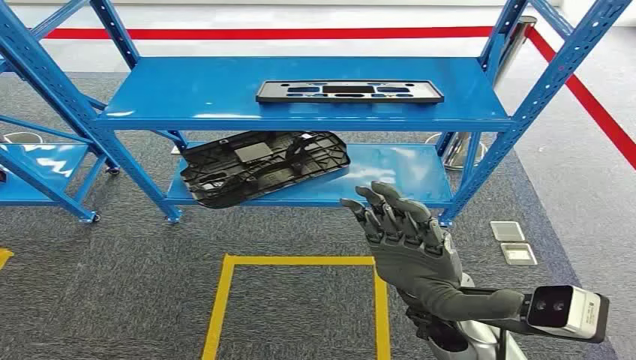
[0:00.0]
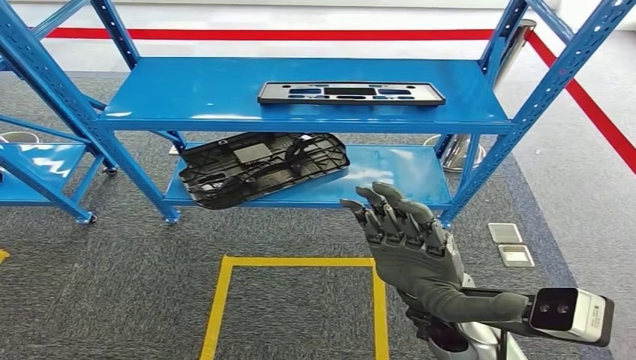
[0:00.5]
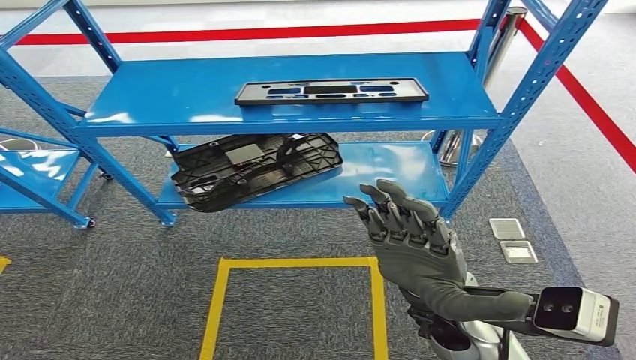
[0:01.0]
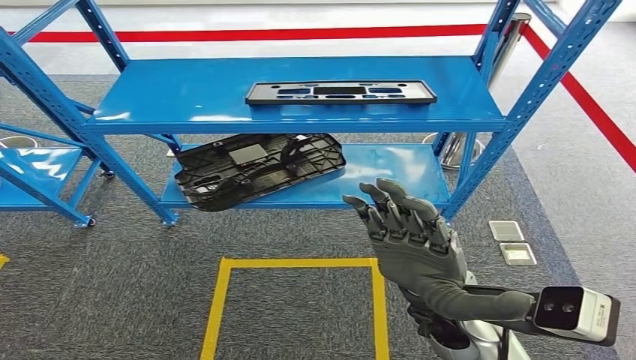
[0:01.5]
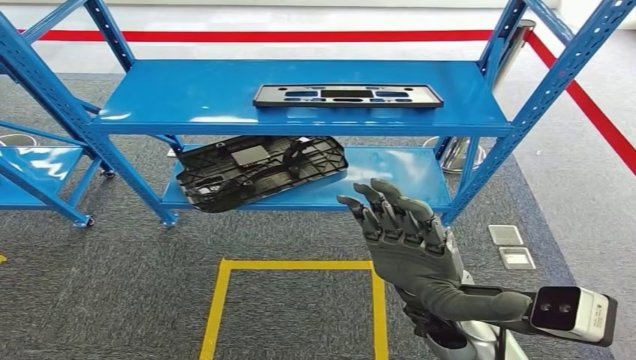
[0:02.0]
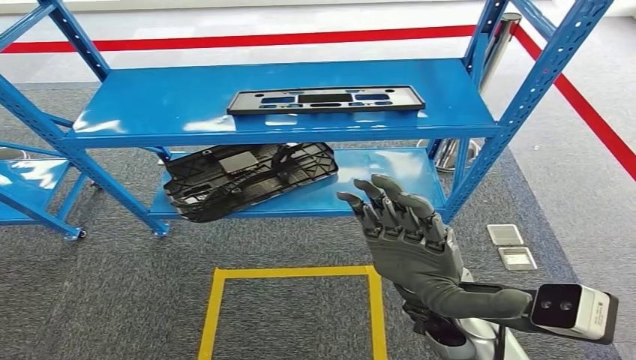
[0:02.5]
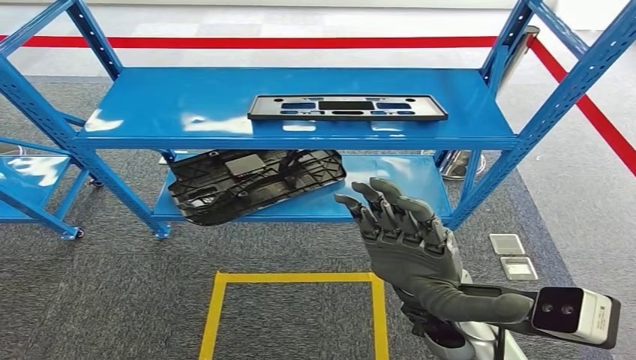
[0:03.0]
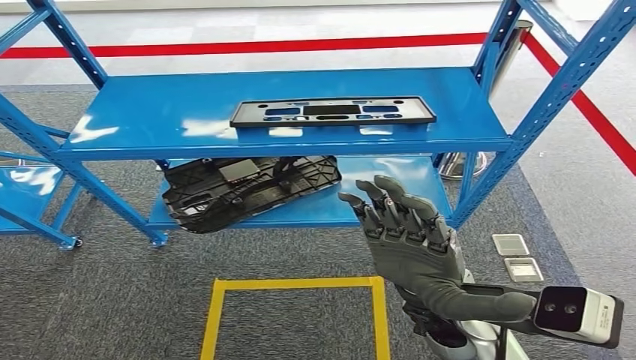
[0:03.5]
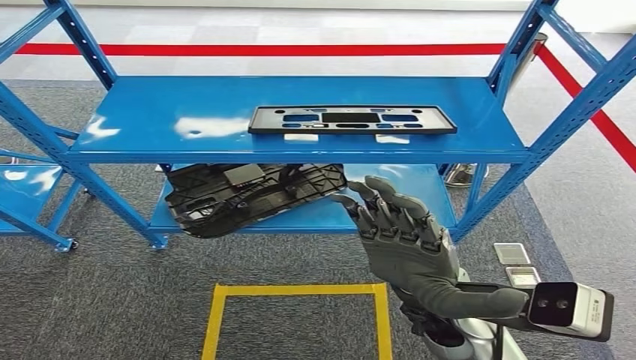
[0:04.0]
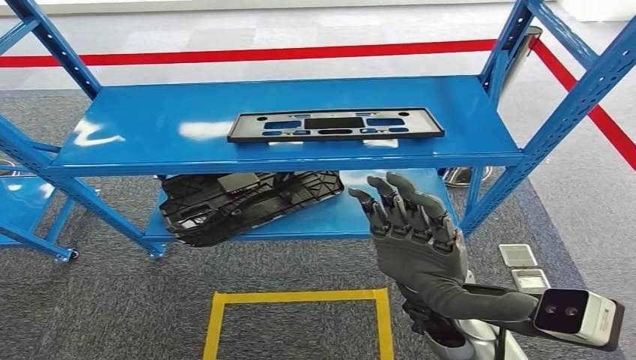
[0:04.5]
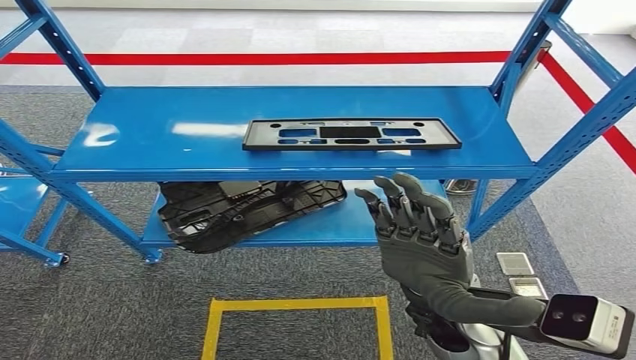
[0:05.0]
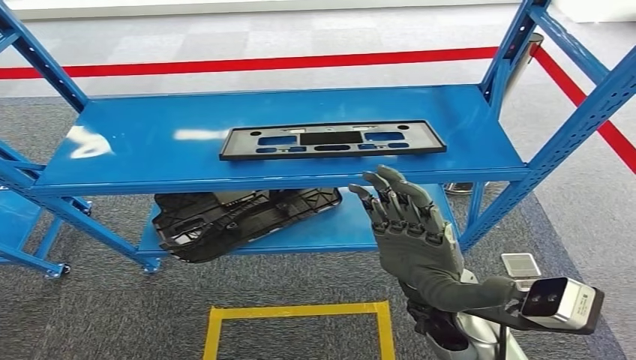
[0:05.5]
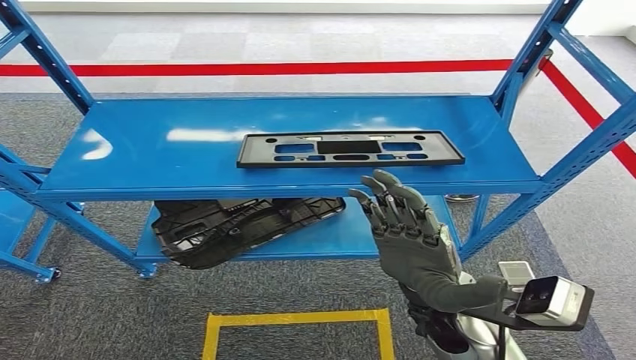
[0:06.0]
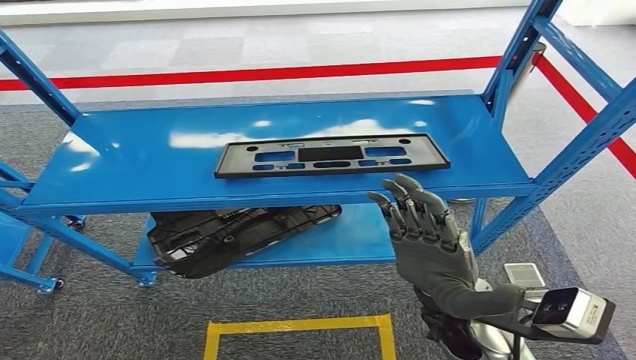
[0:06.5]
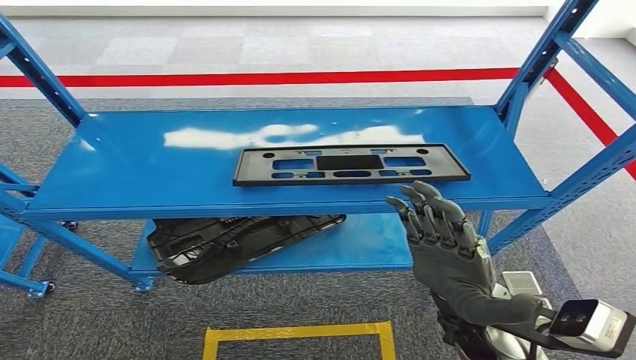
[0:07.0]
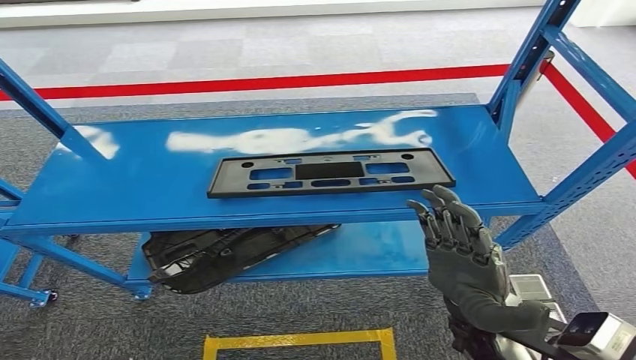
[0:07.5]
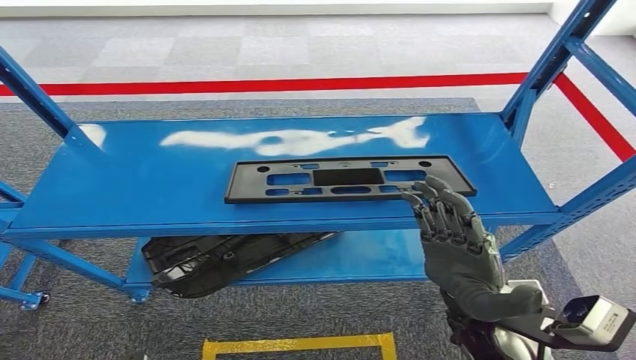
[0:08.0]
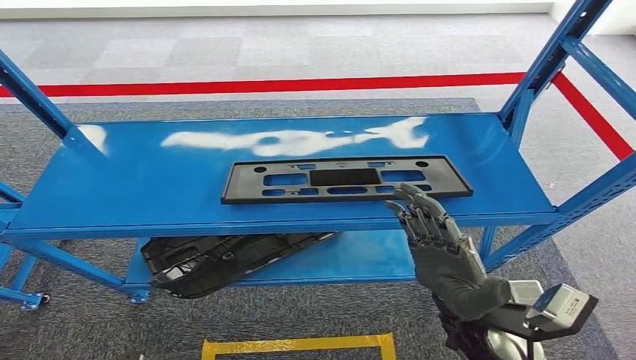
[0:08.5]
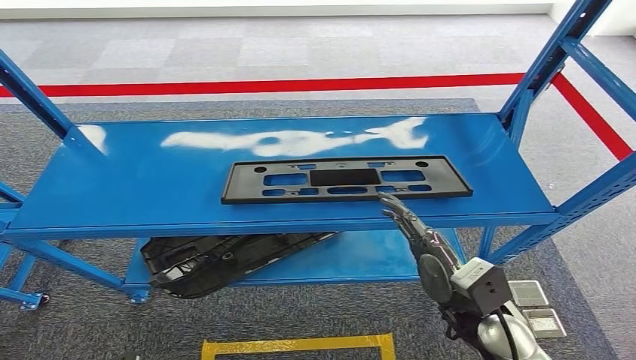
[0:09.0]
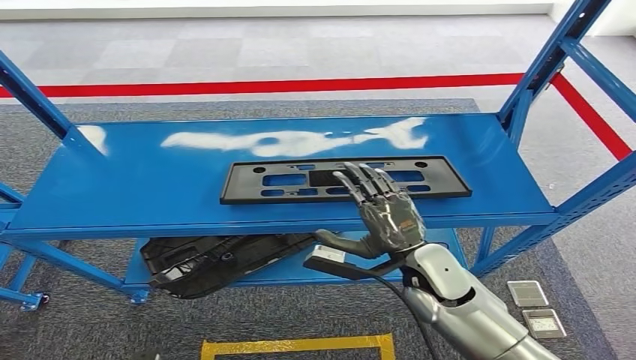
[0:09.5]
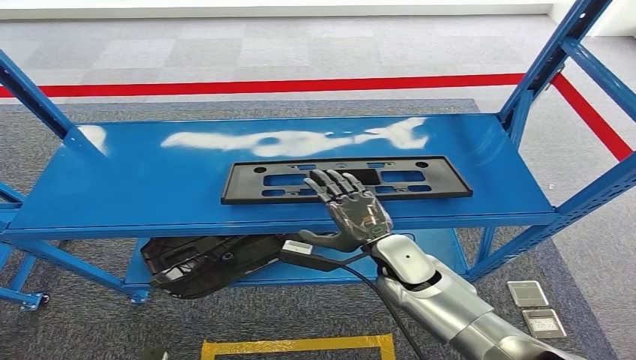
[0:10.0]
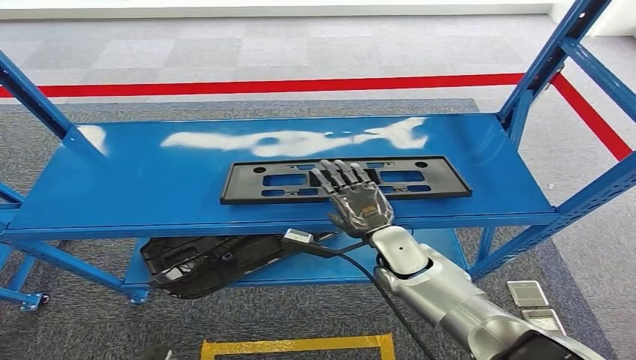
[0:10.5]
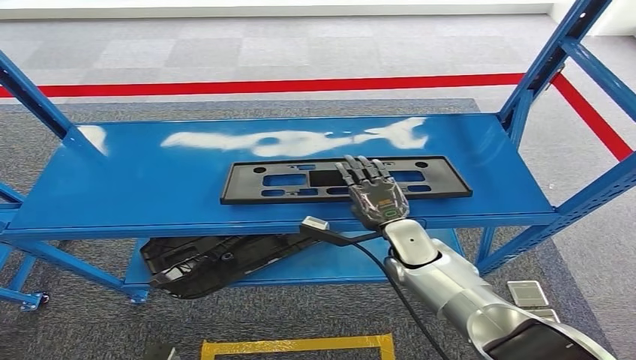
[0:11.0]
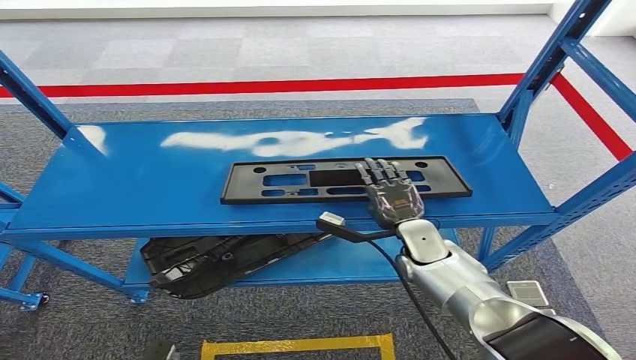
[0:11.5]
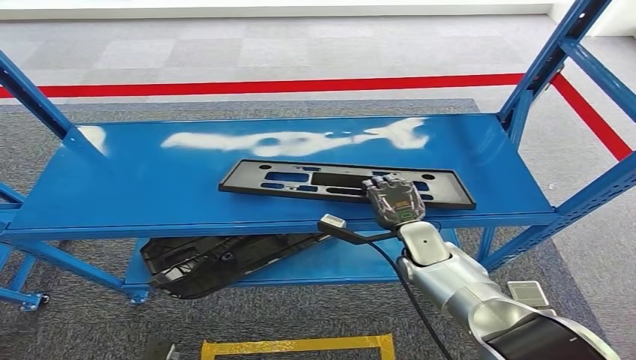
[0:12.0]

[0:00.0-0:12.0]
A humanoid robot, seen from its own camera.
0:08.0 to 0:10.0: The right hand shifts about 15 cm forward, downward and to the left.
0:10.0 to 0:12.0: The right hand goes about 10 cm forward and to the right.

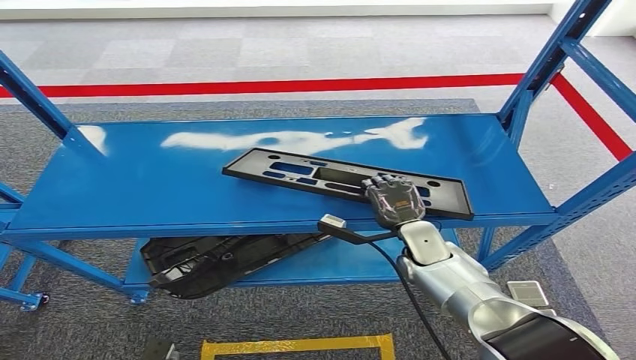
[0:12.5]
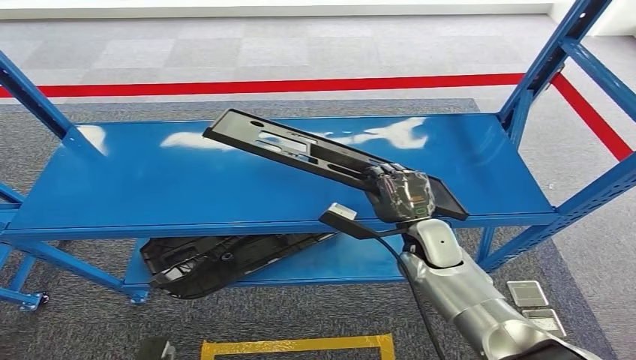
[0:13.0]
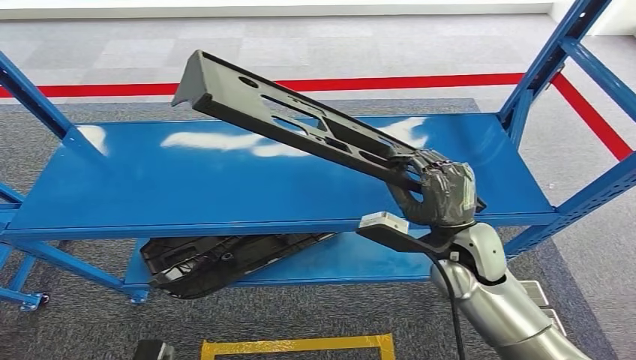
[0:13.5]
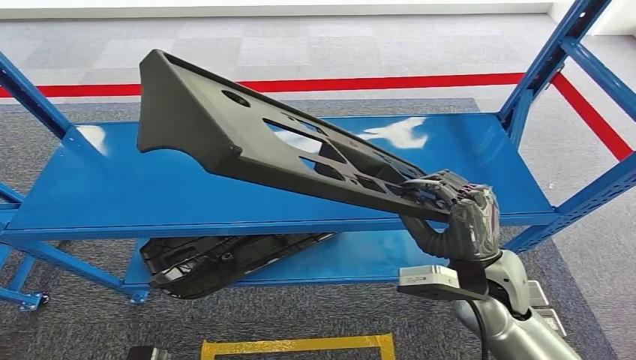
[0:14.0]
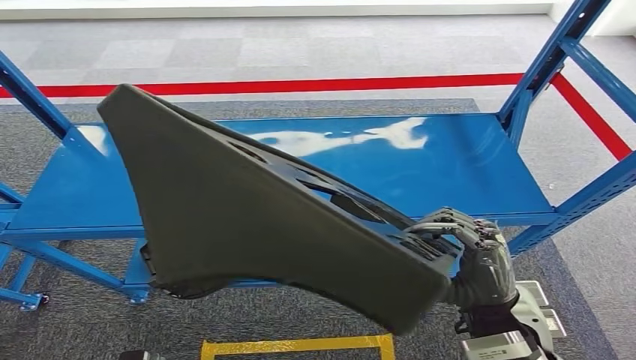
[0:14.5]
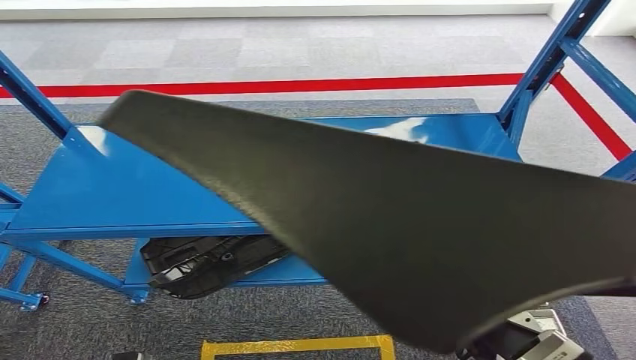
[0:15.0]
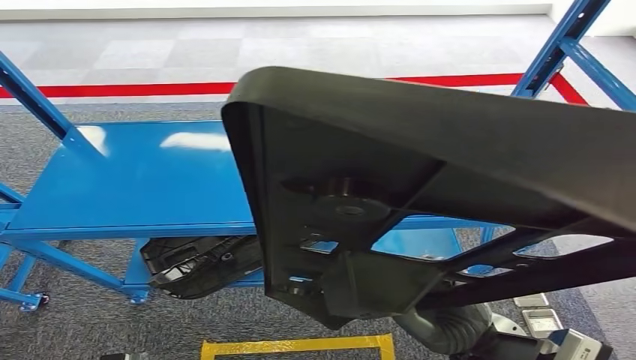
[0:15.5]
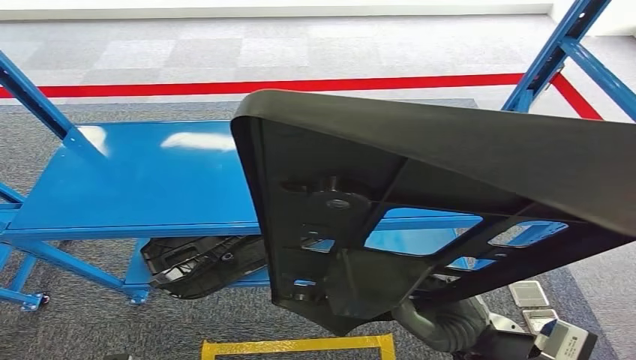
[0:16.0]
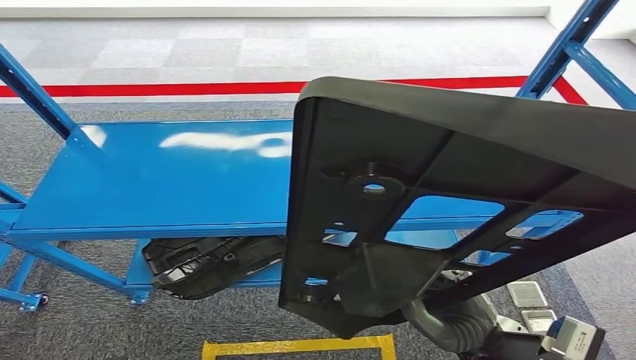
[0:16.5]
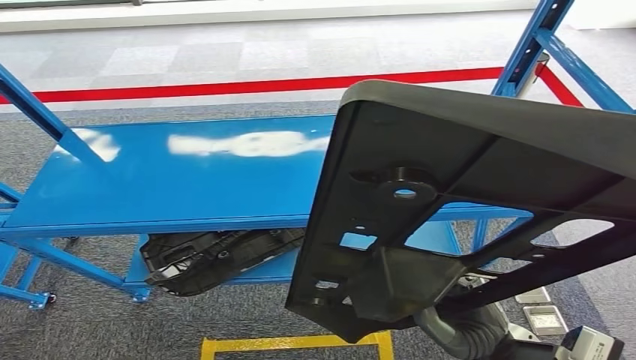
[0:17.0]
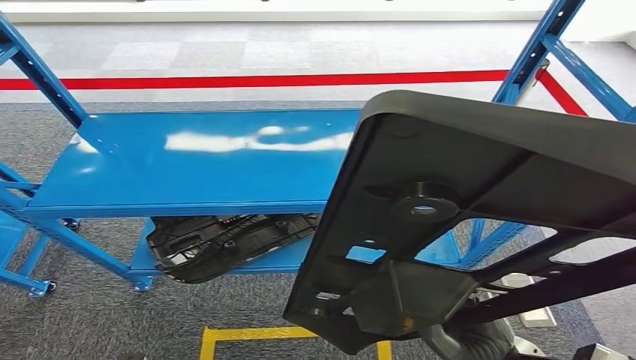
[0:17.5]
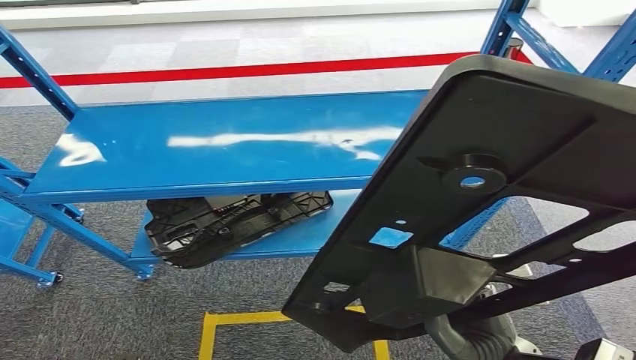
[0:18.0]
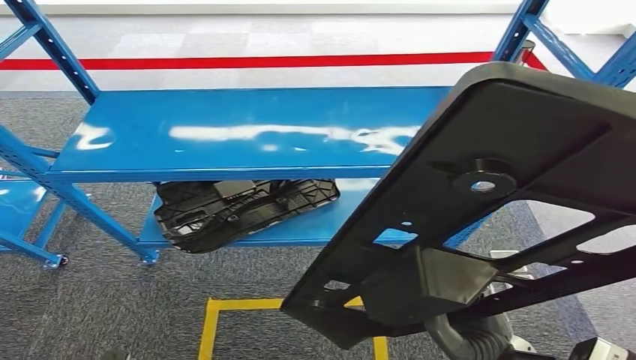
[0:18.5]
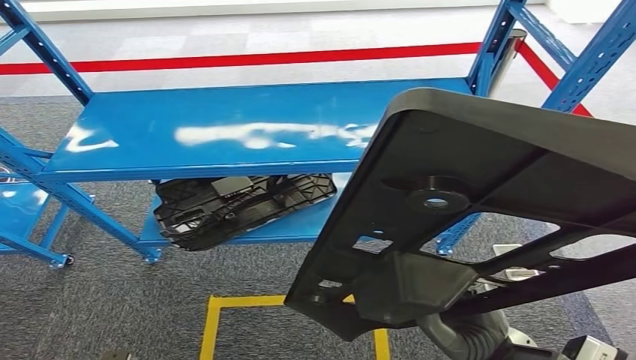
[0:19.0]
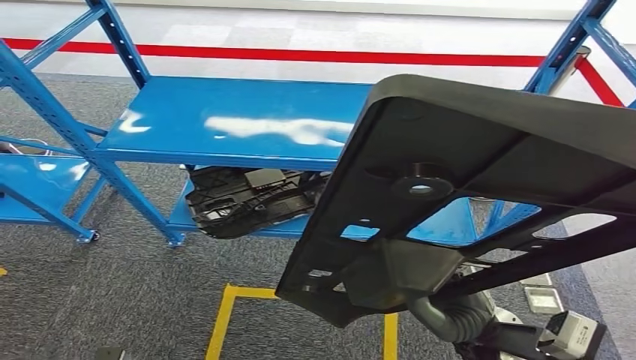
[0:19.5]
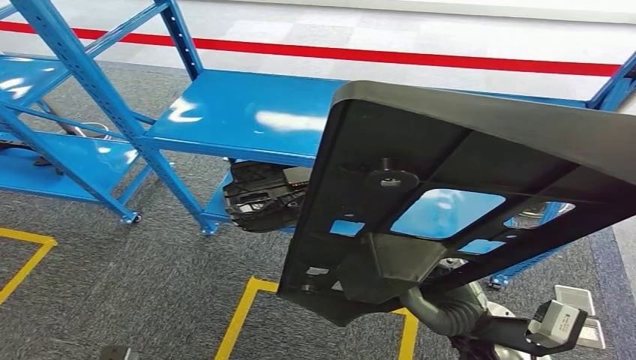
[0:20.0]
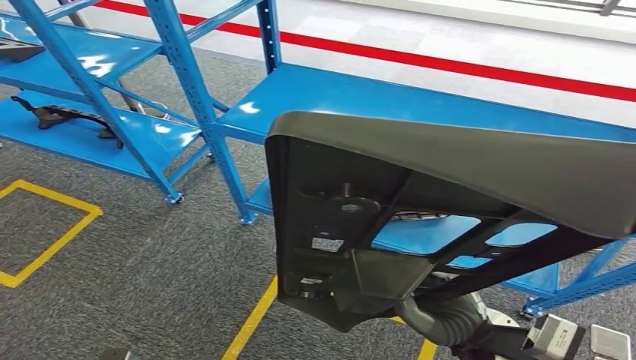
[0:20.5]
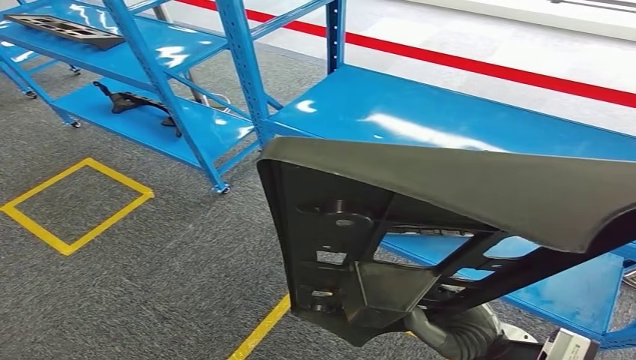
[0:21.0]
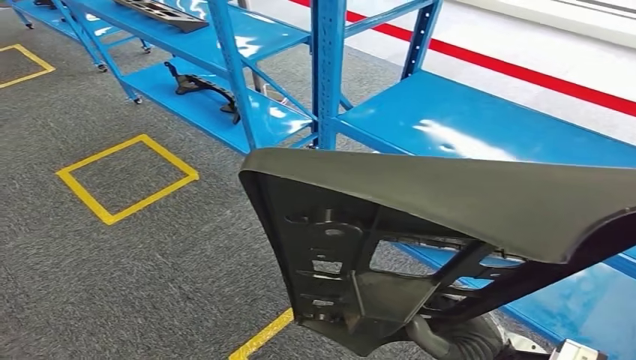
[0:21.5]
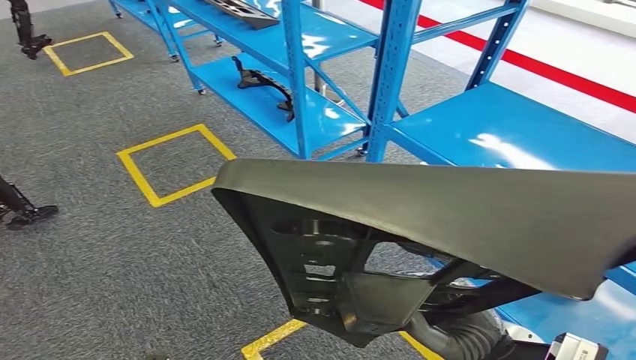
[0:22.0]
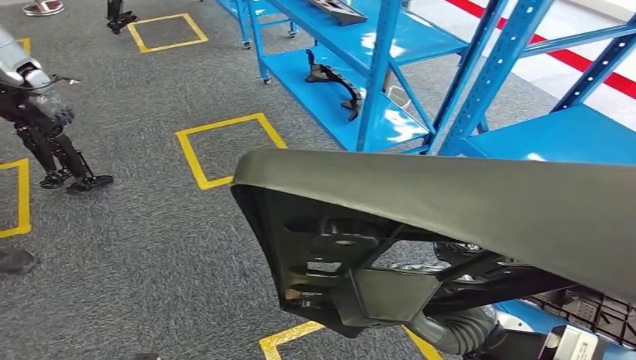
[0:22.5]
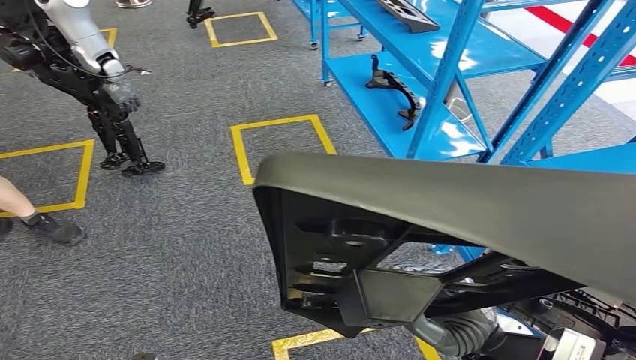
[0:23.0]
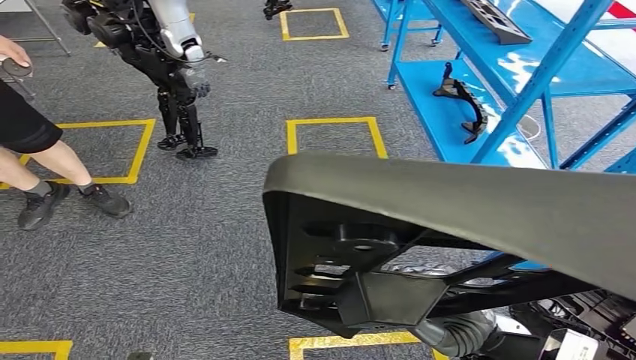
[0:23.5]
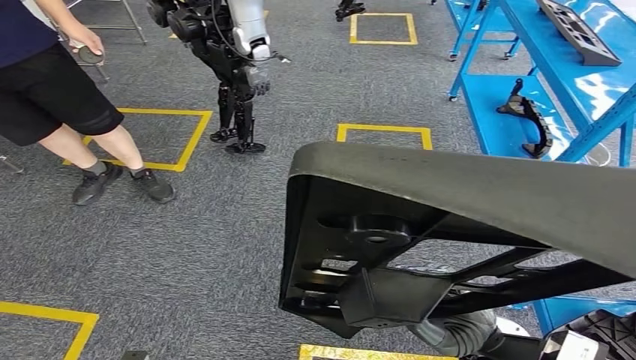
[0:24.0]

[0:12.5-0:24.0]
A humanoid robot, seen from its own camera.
Step, 0:12.5 to 0:14.5: Pick up the large material from the shelf.
